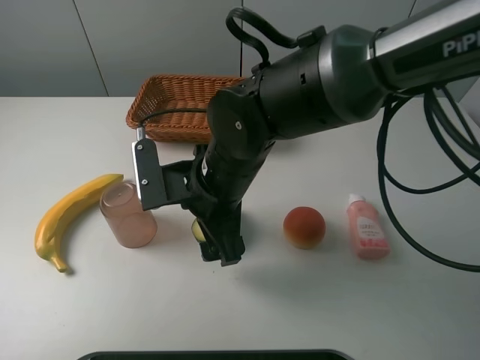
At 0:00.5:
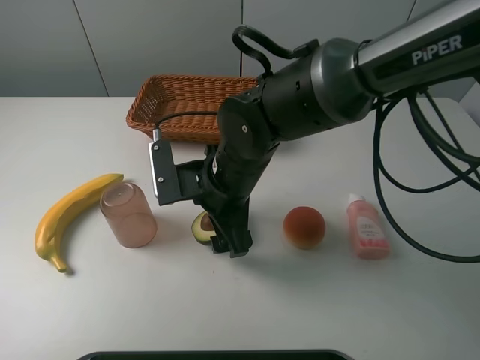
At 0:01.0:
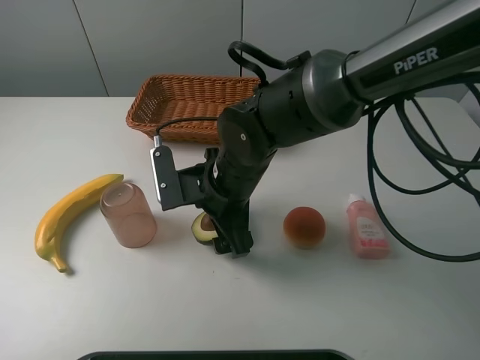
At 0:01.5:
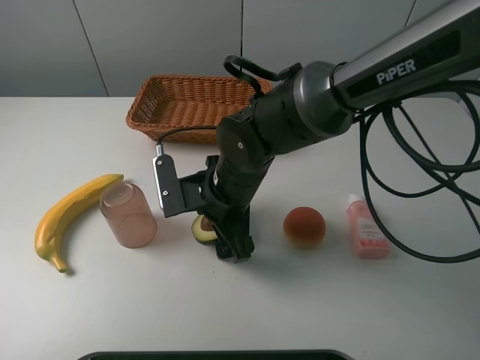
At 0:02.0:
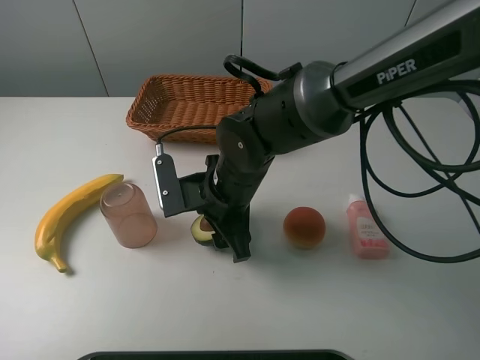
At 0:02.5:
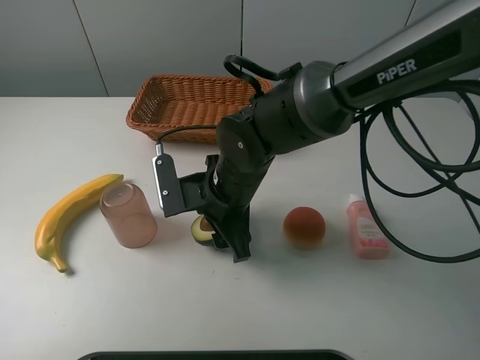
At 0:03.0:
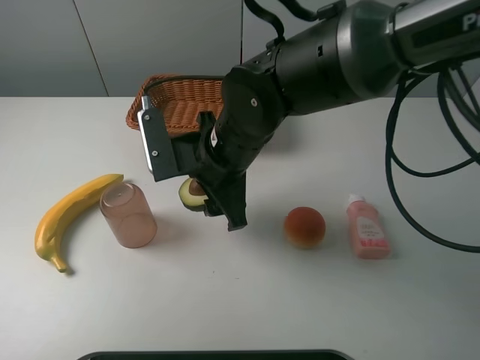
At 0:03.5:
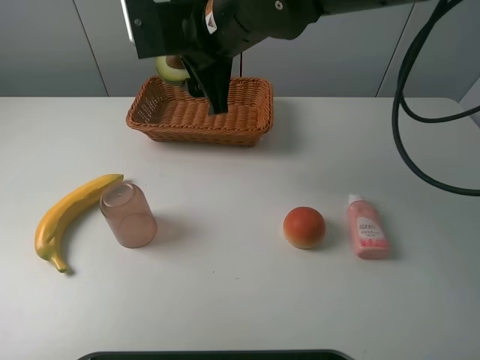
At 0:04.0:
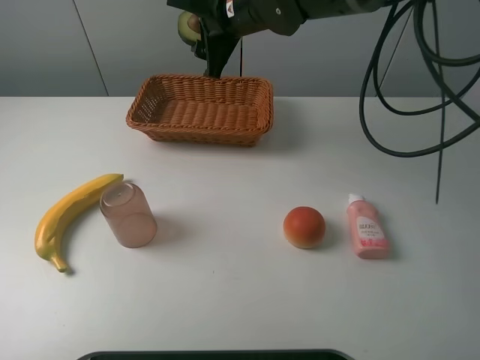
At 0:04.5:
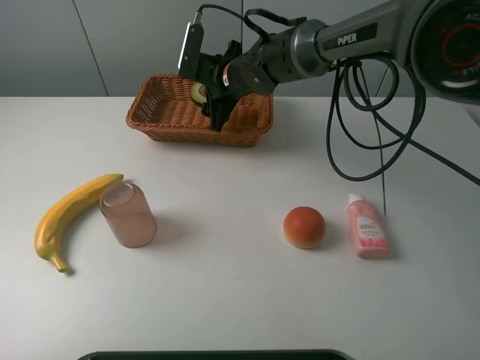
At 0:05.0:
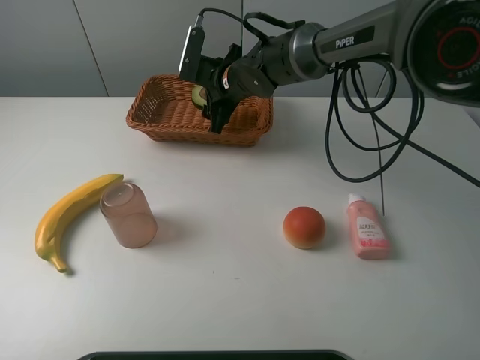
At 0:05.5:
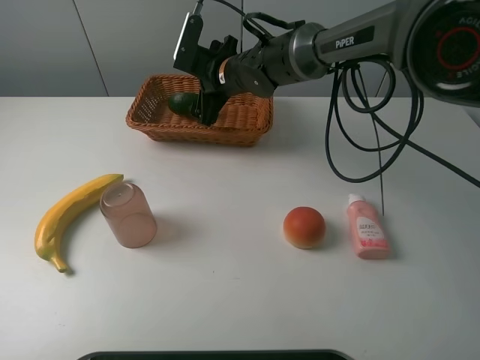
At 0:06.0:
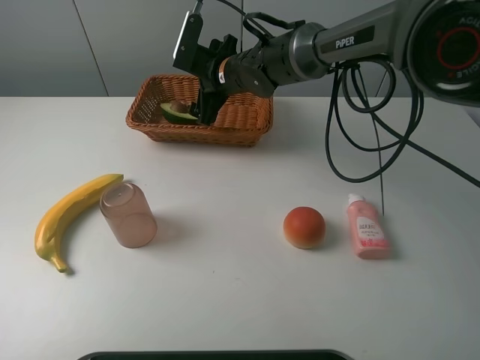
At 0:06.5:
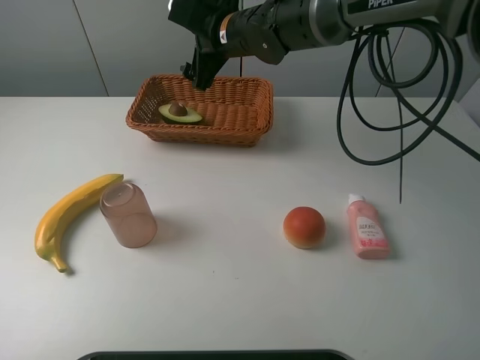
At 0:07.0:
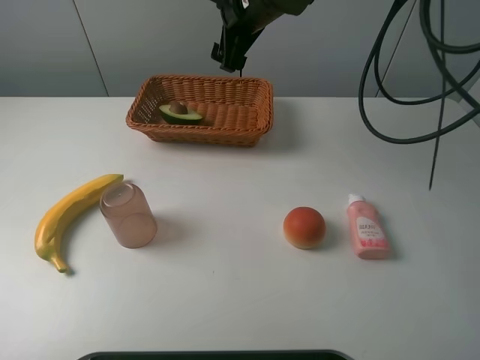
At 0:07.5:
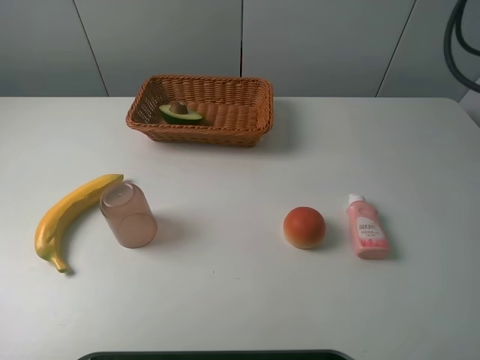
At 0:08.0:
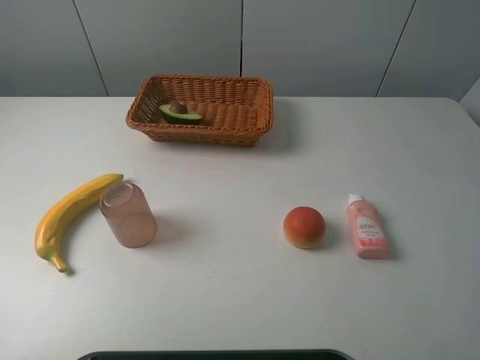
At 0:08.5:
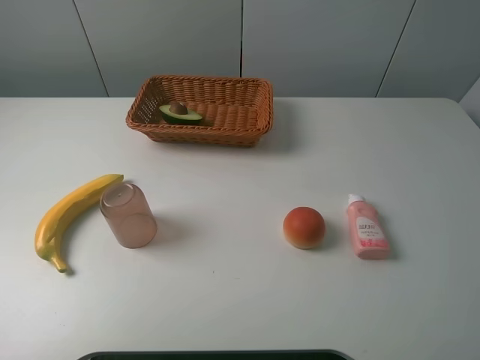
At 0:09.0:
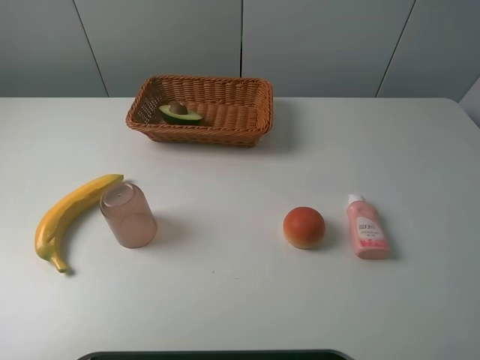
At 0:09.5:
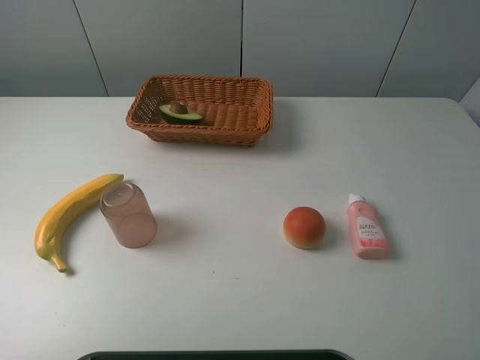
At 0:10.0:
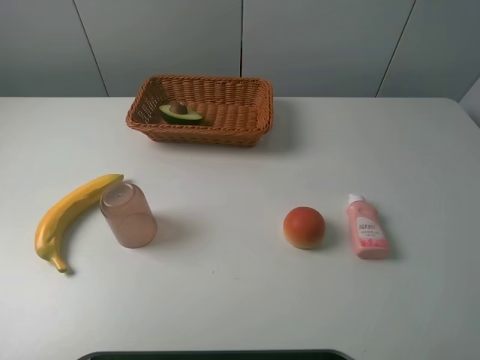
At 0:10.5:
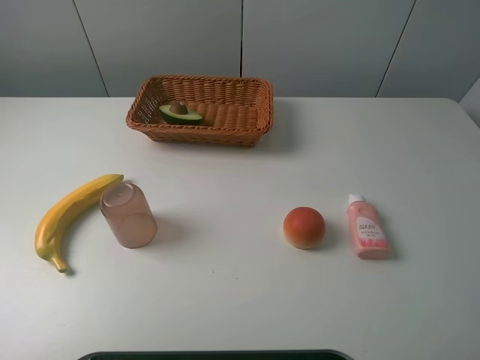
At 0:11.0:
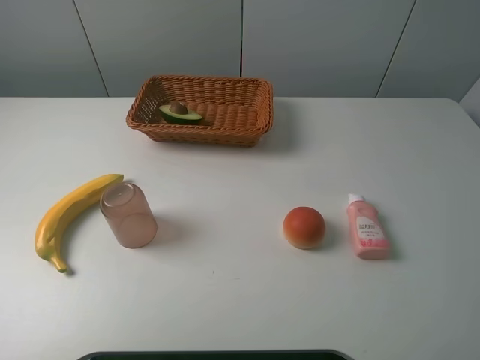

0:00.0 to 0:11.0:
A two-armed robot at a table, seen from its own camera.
Task of the whole recording: randomly pick up an item from the table and put it in the basket.
Step, 0:00.0 to 0:02.0: Grasp the avocado with the right gripper.
Step, 0:02.5 to 0:06.5: Place the avocado into the basket with the right gripper.
0:00.0 to 0:02.0: The grippers move only a little.
0:02.0 to 0:03.5: The right gripper goes about 20 cm upward and forward.
0:03.5 to 0:05.5: The right gripper heads downward and forward, covering roughly 20 cm.
0:05.5 to 0:07.5: The right gripper travels upward and to the right by about 25 cm.
0:07.5 to 0:09.0: The right gripper goes some 40 cm backward, to the right and upward.

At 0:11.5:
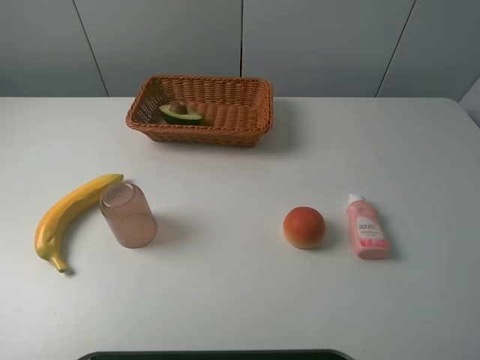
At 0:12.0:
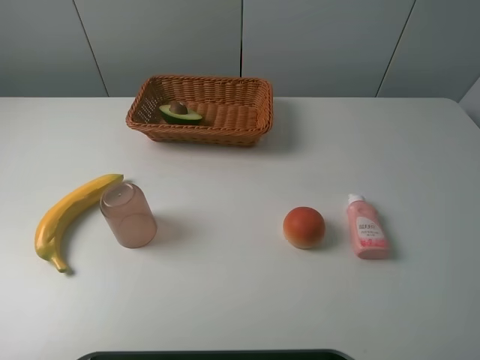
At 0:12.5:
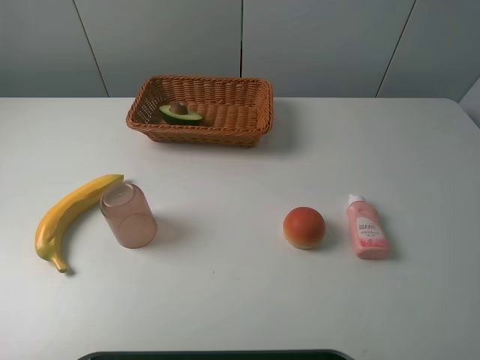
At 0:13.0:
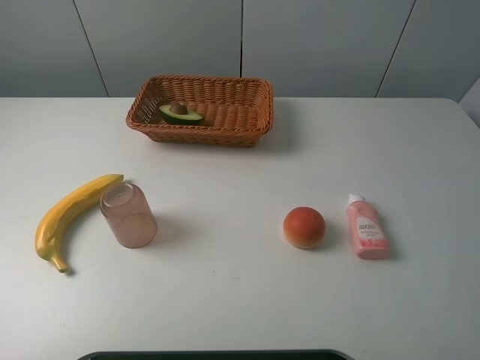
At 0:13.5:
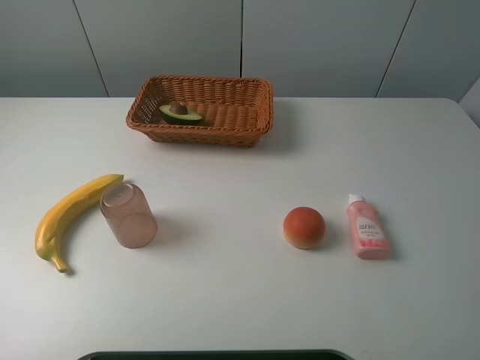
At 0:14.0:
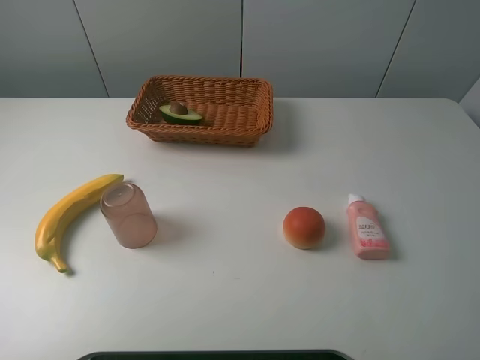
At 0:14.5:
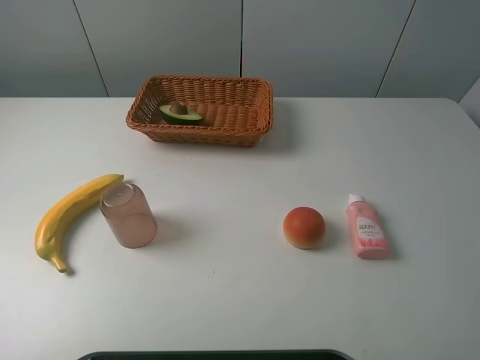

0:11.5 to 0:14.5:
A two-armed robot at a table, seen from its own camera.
Task of the whole recording: randomly pick up an item from the table and put it in the basket.
0:13.0 to 0:14.5: Both grippers stay about where they are.
